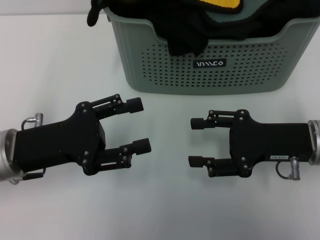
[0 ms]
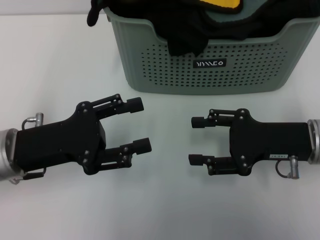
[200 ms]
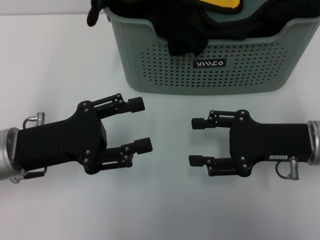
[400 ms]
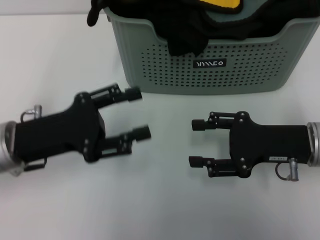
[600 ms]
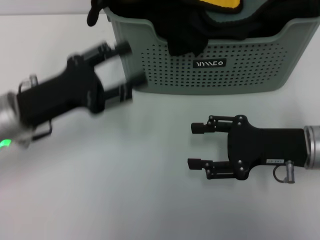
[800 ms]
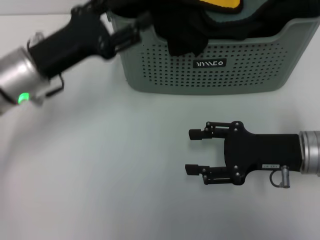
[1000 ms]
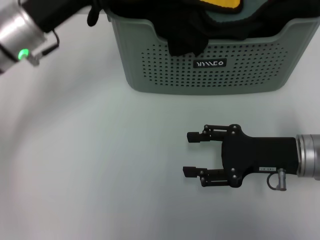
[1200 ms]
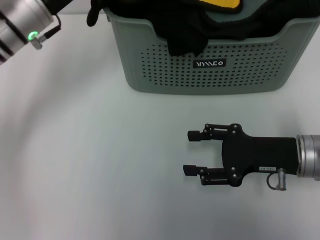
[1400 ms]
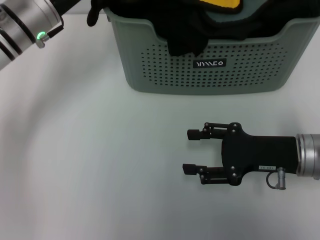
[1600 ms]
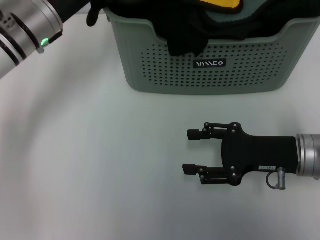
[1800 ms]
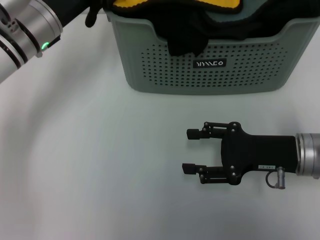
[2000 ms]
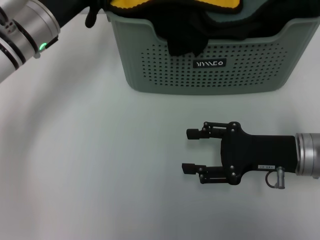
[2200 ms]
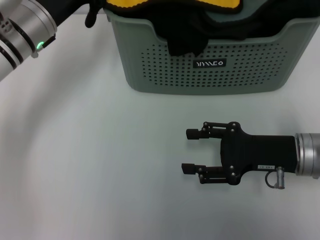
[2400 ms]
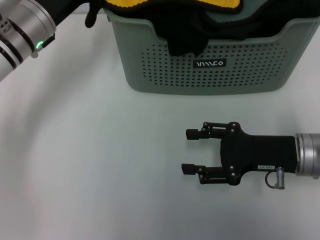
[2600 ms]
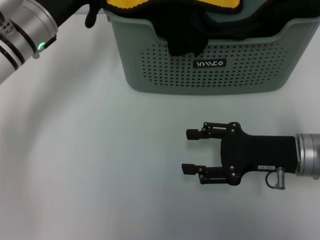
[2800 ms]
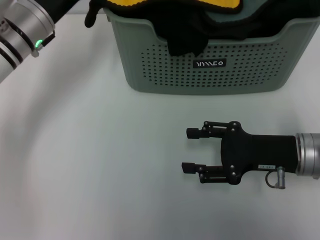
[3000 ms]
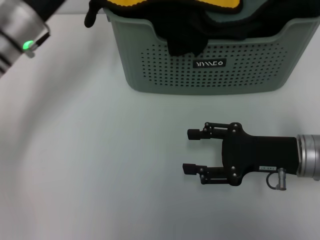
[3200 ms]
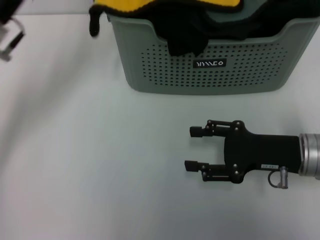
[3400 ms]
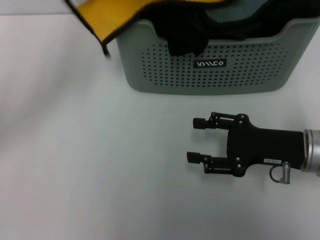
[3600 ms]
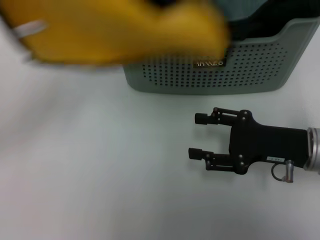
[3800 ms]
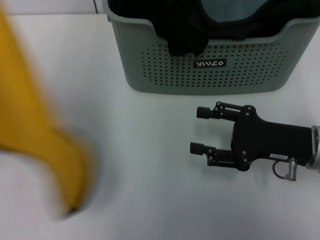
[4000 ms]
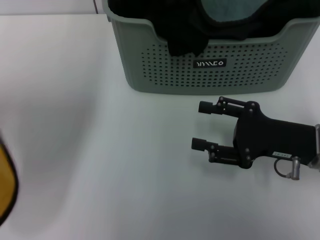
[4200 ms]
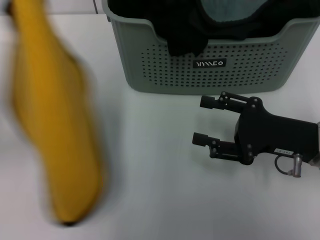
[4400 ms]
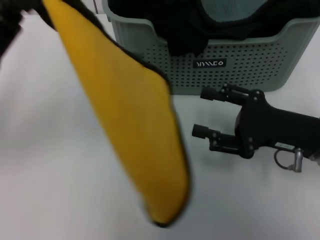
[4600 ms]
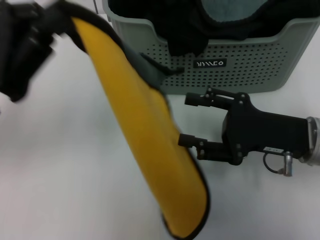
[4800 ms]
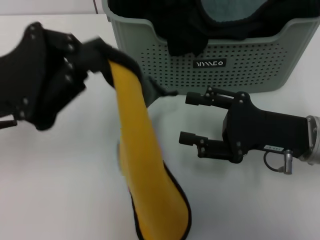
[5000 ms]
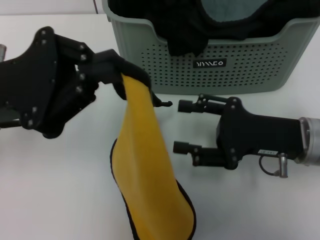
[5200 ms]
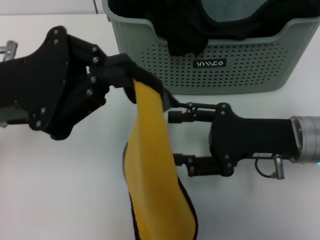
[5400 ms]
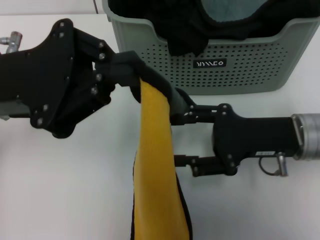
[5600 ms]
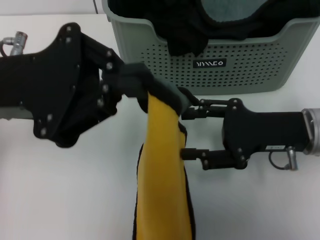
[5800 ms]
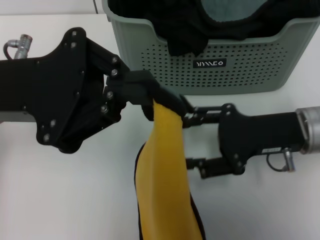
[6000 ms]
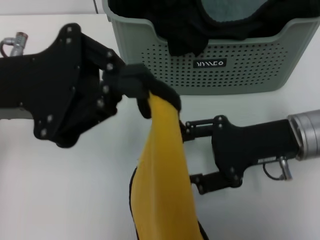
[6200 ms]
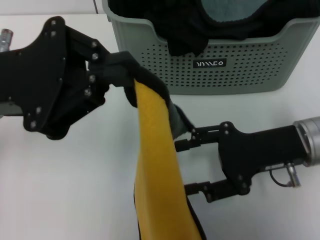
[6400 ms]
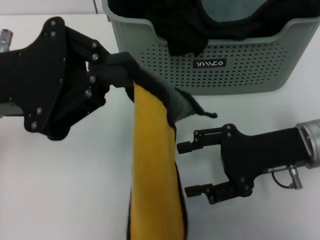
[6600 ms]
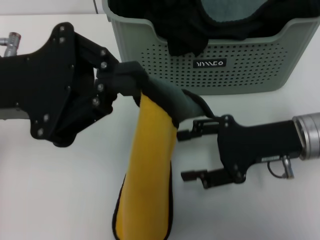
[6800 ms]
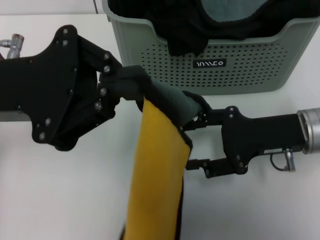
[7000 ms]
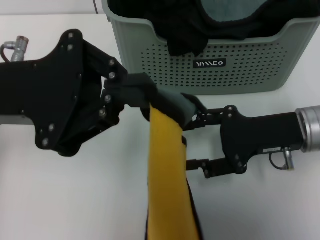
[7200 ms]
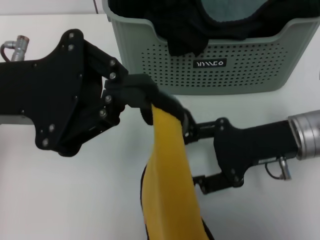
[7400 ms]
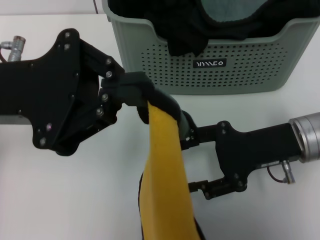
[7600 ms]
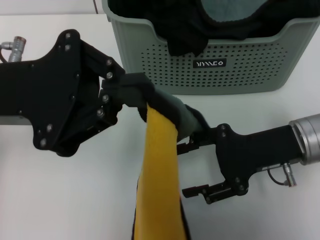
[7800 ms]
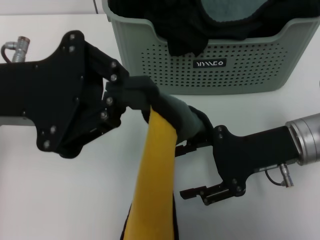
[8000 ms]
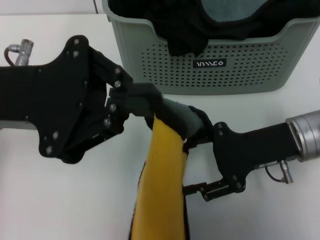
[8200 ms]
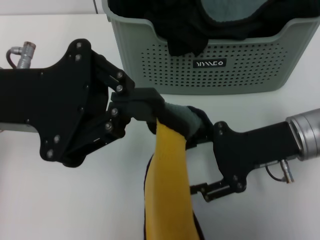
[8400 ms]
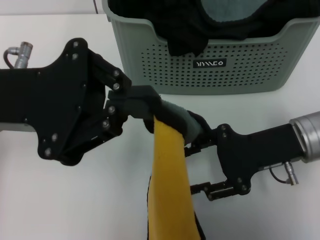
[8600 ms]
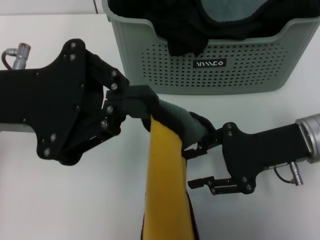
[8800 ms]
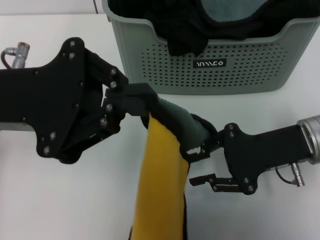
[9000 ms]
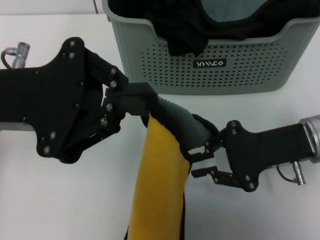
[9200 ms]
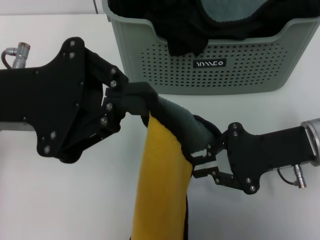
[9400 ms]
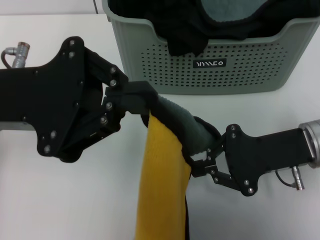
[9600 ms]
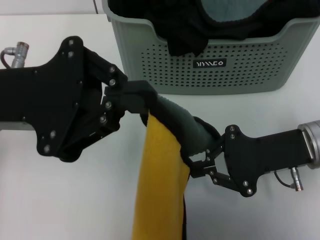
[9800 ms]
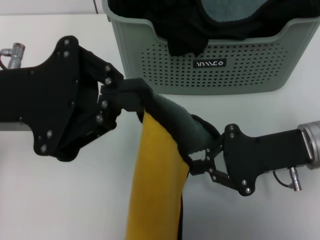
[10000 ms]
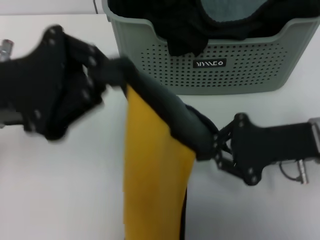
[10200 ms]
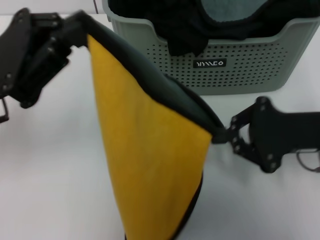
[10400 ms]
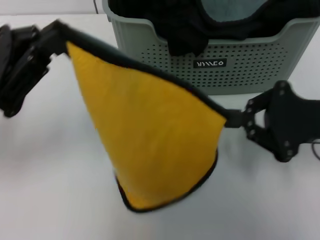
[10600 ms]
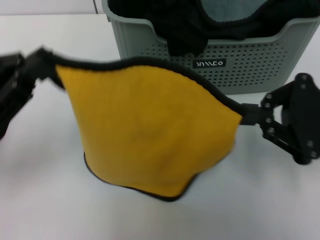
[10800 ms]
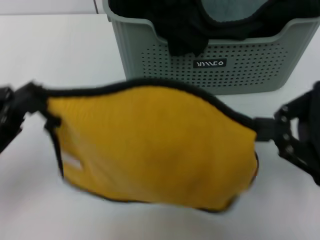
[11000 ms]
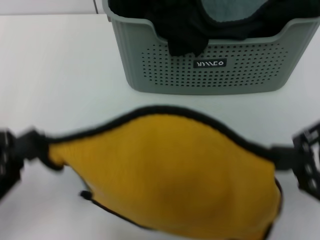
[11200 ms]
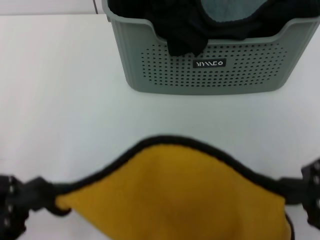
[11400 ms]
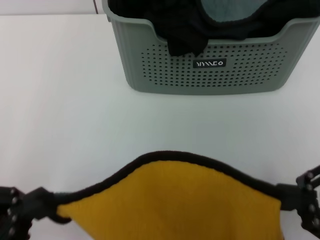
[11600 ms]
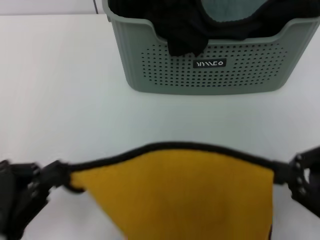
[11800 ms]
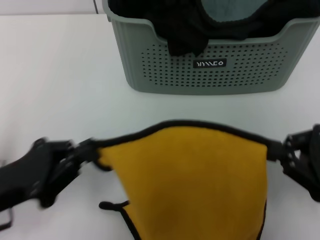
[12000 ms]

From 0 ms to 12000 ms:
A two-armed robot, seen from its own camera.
Task of the whole recording: pick up the towel from the storage box and lay it flat on the table.
Step, from 0 ms to 3200 ms: Pick up a towel with the left gripper.
Step, from 3400 ms to 9600 ms: Spread the towel flat with the left gripper.
From 0 ms to 1600 ms: The left gripper is displaced forward and upward by roughly 15 cm.
From 1600 ms to 3000 ms: The left gripper closes up.
From 3000 ms to 4400 ms: The left gripper travels backward and to the left by some 15 cm.
From 4400 ms to 6000 ms: The left gripper heads to the right, covering roughly 5 cm.
From 6000 ms to 7600 ms: There are only small adjustments of the grippers.
From 7600 ms to 9000 ms: The right gripper closes up.
From 9000 ms to 10400 ms: The right gripper closes.
From 10400 ms to 12000 ms: The left gripper goes roughly 15 cm downward and backward; the right gripper goes approximately 10 cm backward and to the right.

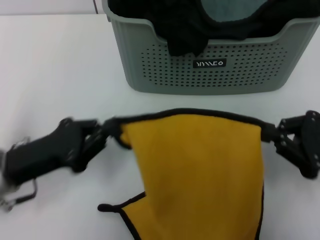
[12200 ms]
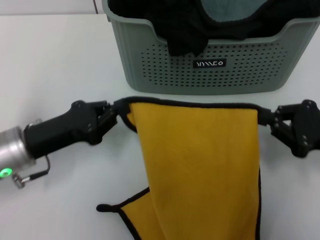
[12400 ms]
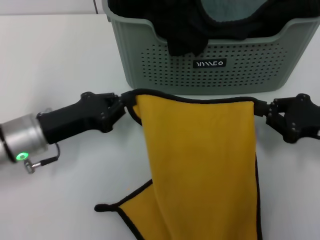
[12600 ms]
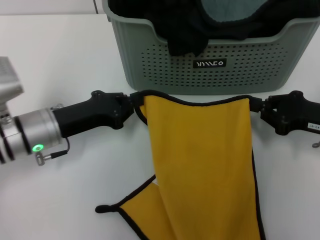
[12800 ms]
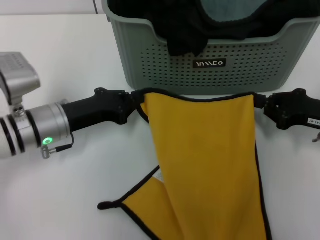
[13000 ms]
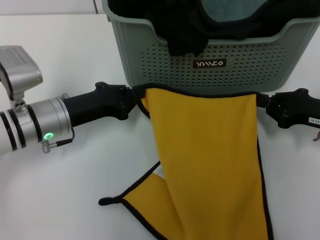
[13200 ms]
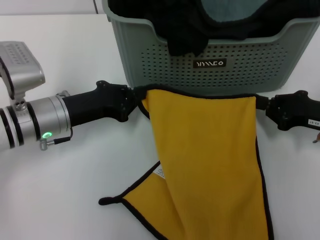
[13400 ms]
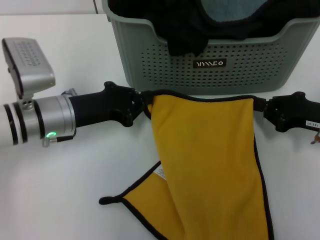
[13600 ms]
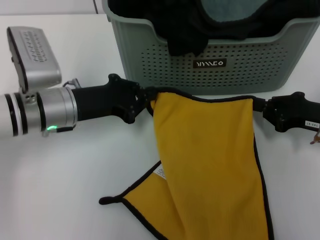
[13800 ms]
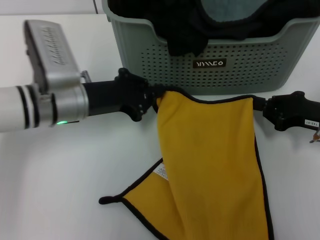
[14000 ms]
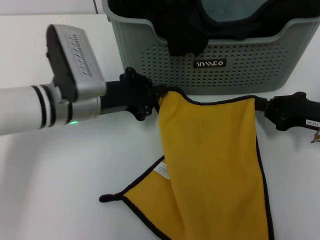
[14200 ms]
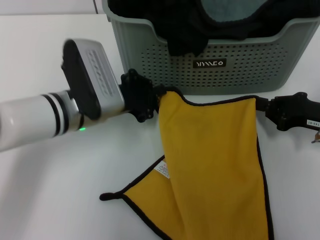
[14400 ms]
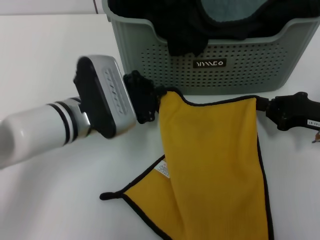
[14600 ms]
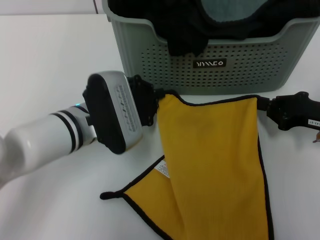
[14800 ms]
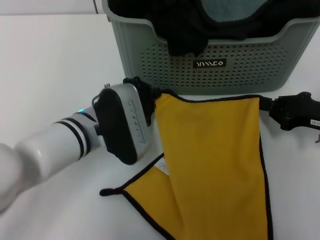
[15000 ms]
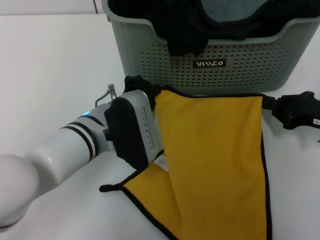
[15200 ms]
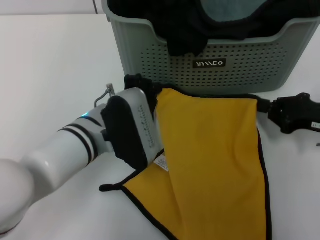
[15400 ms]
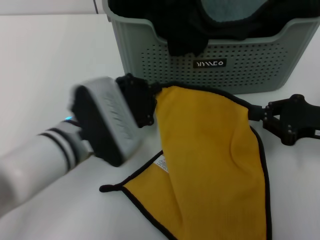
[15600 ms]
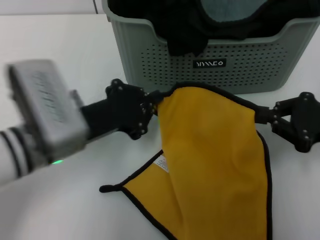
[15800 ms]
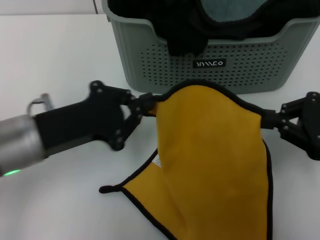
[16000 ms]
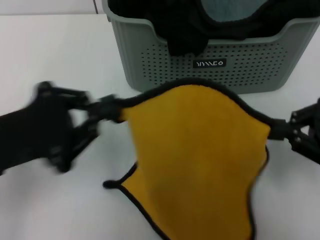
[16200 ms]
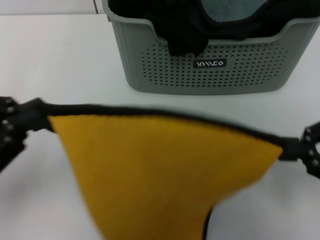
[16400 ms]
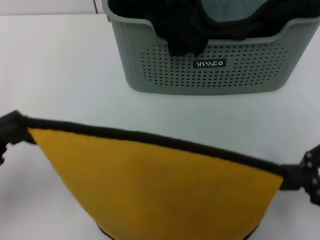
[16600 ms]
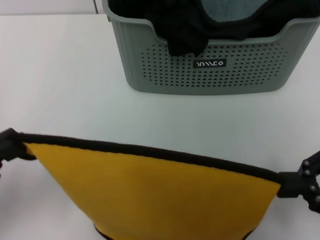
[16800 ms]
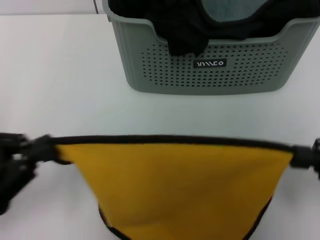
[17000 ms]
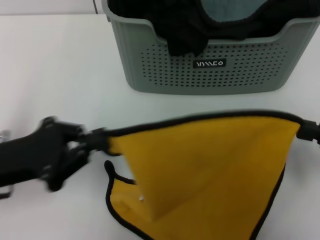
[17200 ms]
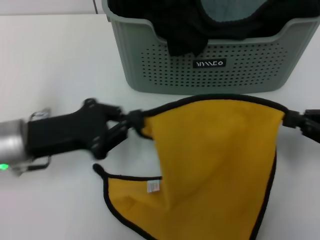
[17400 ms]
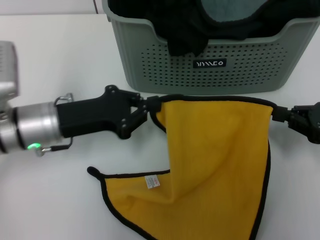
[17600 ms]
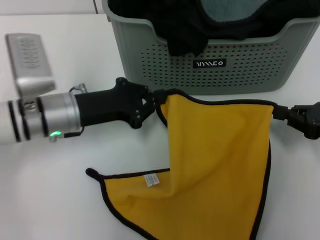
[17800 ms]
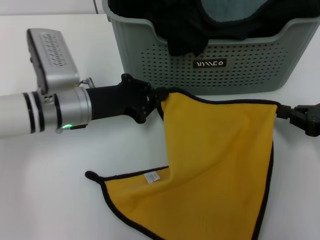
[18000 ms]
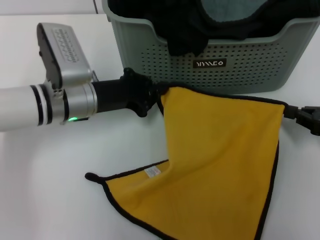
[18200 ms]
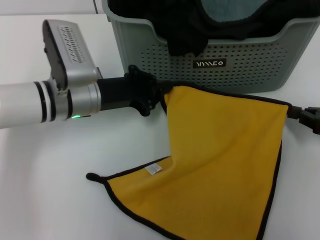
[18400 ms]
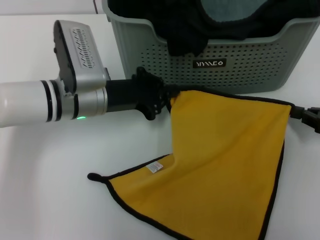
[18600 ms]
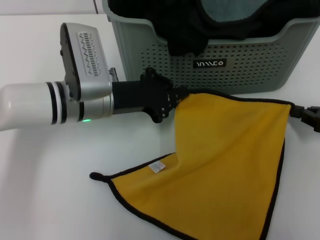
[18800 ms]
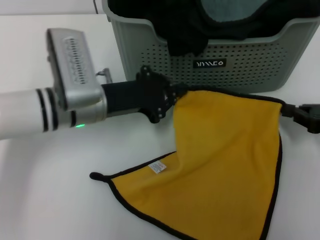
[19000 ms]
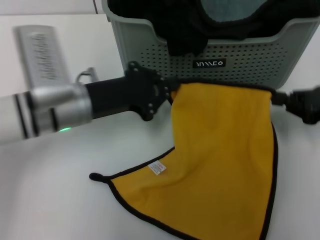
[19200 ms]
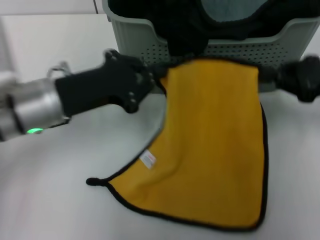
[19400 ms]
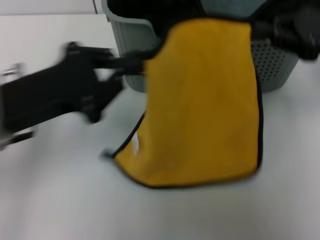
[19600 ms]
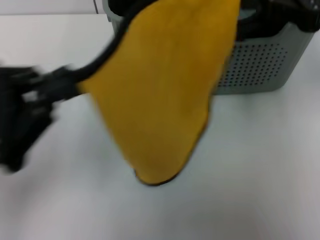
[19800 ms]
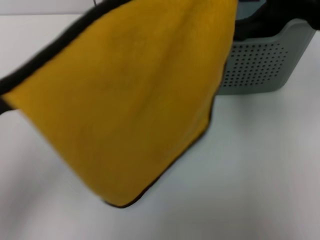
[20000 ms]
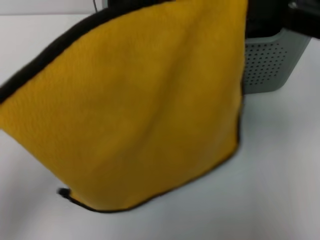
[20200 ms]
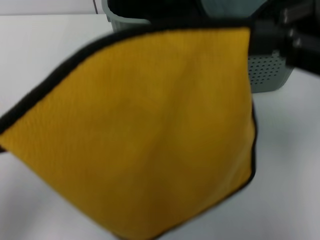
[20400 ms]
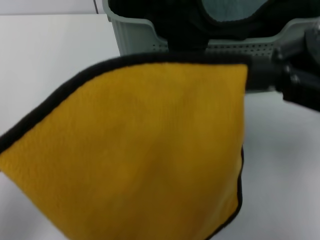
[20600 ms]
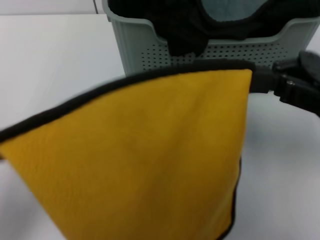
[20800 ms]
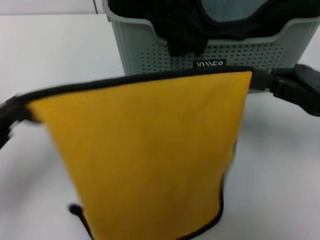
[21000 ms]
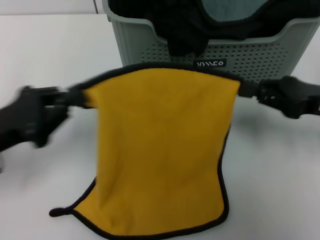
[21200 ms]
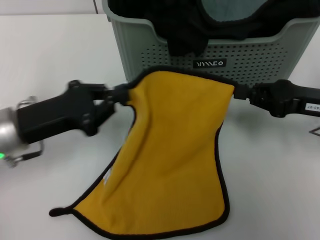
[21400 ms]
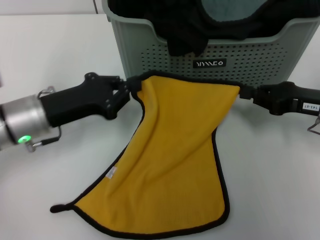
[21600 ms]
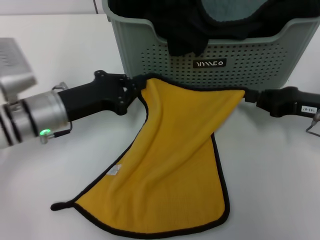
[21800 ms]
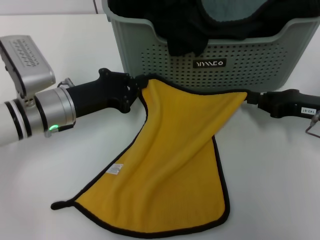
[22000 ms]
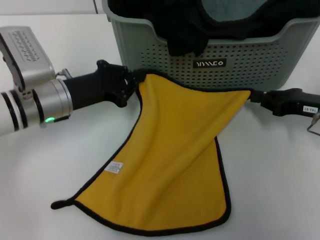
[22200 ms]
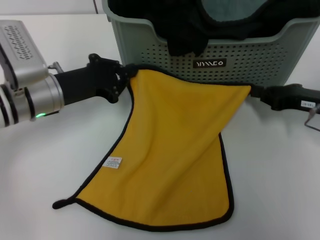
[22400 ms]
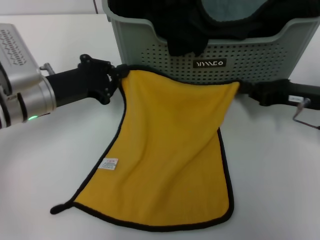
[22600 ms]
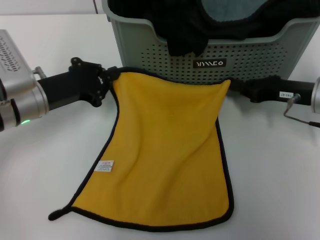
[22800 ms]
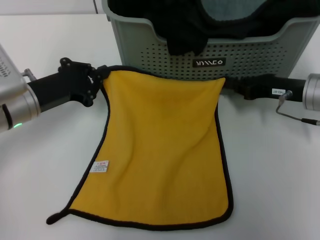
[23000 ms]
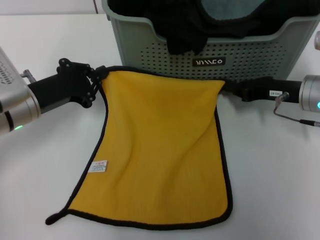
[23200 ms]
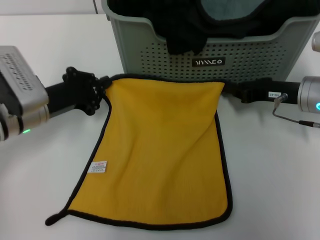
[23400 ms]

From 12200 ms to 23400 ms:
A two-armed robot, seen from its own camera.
Task of the whole recording: pick up the towel from the storage box and lay it flat on the table.
From 12200 ms to 13800 ms: The left gripper heads forward and to the right, covering some 10 cm. Meanwhile the right gripper heads forward, covering approximately 10 cm.
From 13800 ms to 15400 ms: The left gripper goes about 10 cm to the right.
From 15400 ms to 17000 ms: The right gripper moves backward and upward, about 15 cm. The left gripper heads to the left and backward, covering roughly 25 cm.
From 17000 ms to 18600 ms: The right gripper goes about 10 cm forward and downward, while the left gripper moves forward and to the right, about 25 cm.
From 18600 ms to 20200 ms: The left gripper is displaced backward, to the left and upward by about 30 cm; the right gripper shifts about 25 cm upward and to the left.
From 20200 ms to 21800 ms: The right gripper shifts about 20 cm downward. The left gripper heads forward, downward and to the right, covering about 25 cm.
From 21800 ms to 23400 ms: The right gripper shifts by roughly 5 cm.
